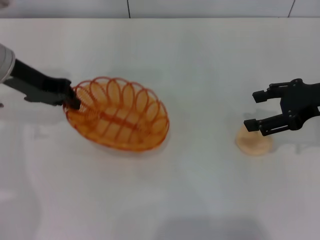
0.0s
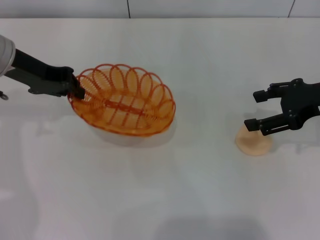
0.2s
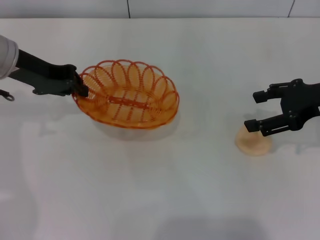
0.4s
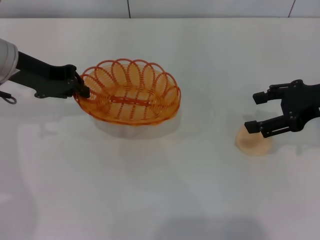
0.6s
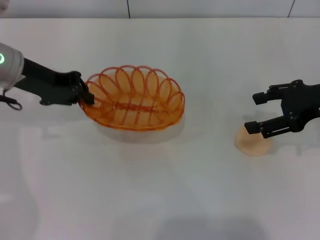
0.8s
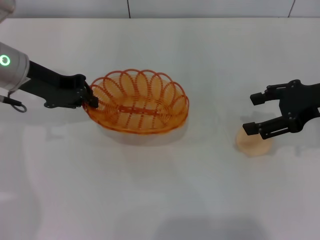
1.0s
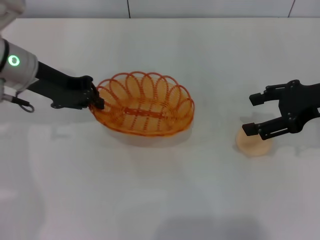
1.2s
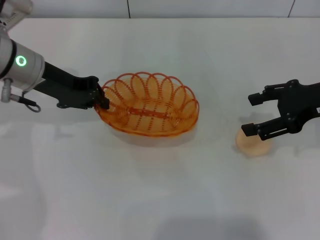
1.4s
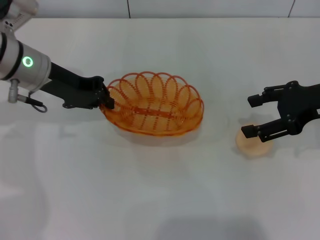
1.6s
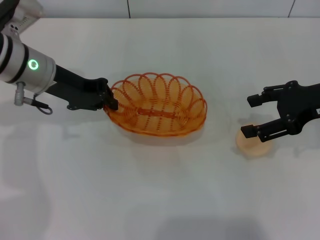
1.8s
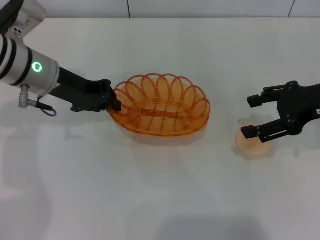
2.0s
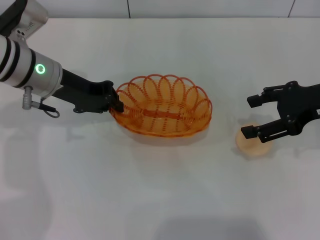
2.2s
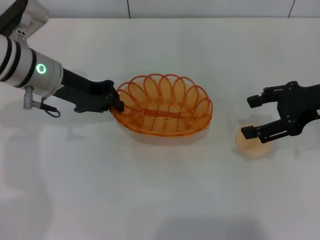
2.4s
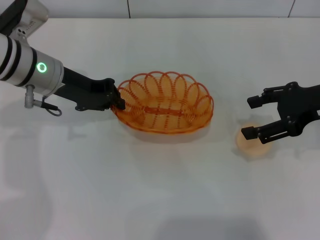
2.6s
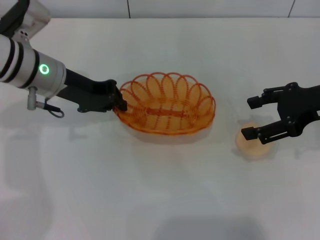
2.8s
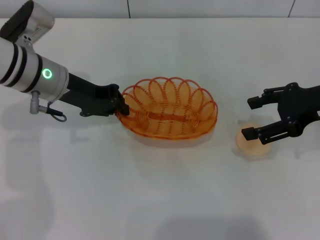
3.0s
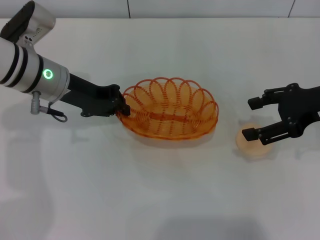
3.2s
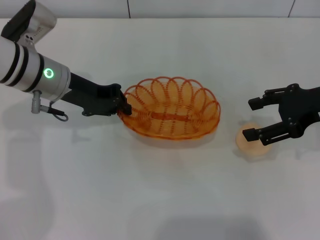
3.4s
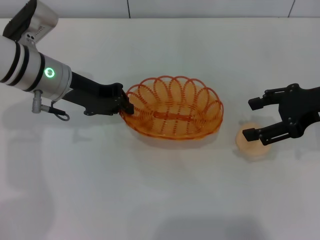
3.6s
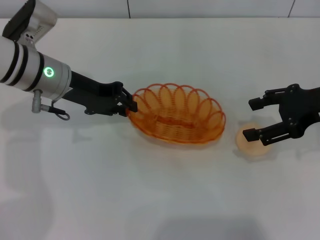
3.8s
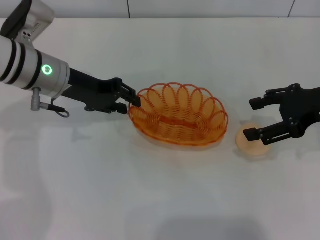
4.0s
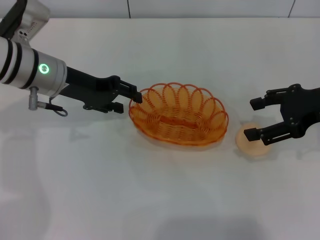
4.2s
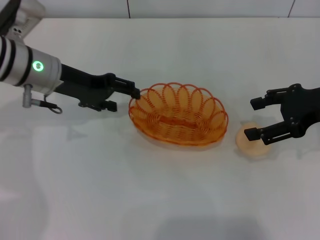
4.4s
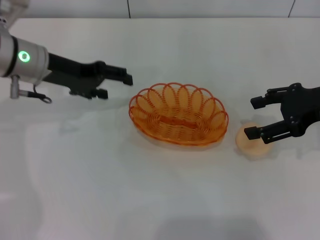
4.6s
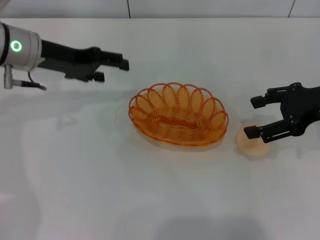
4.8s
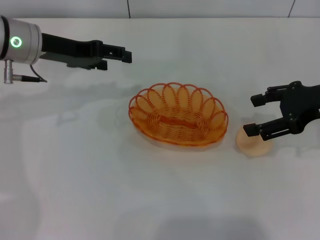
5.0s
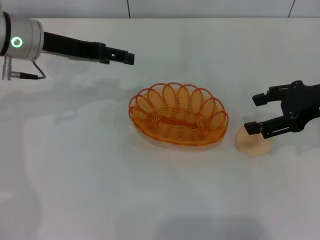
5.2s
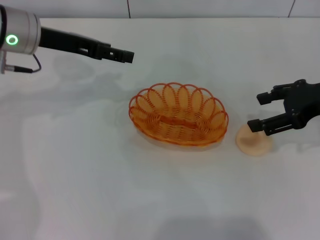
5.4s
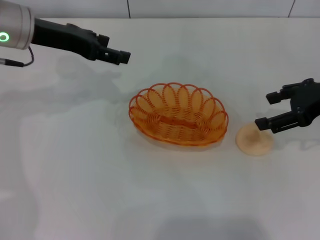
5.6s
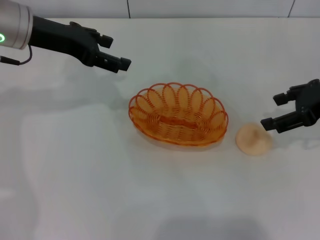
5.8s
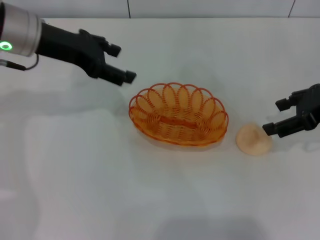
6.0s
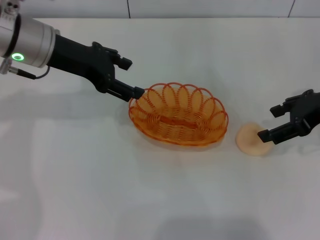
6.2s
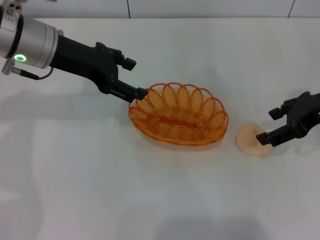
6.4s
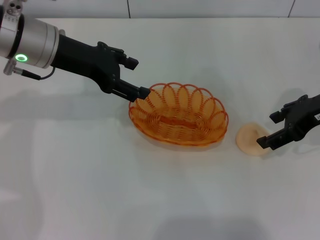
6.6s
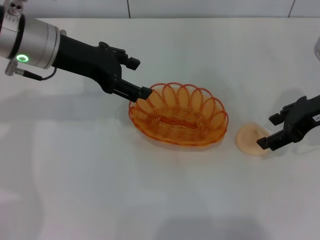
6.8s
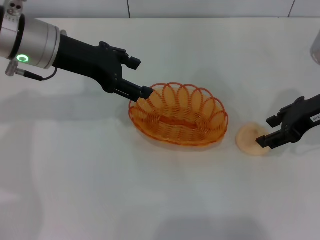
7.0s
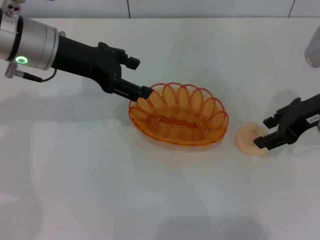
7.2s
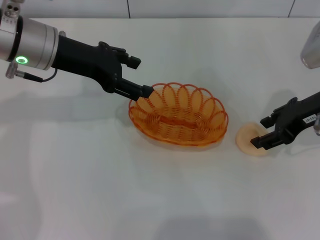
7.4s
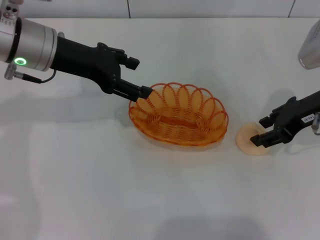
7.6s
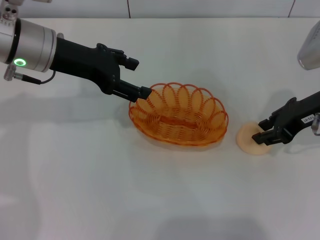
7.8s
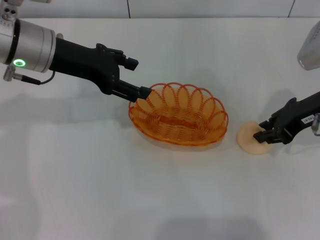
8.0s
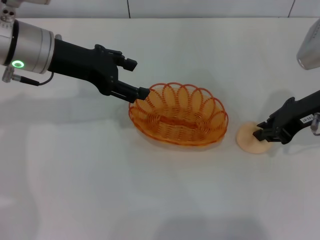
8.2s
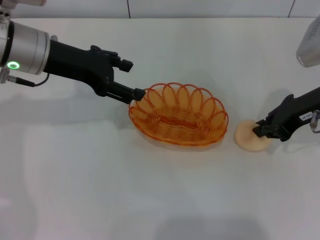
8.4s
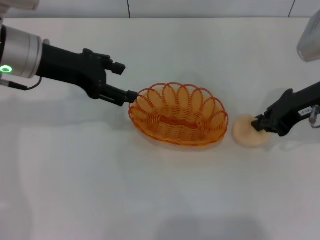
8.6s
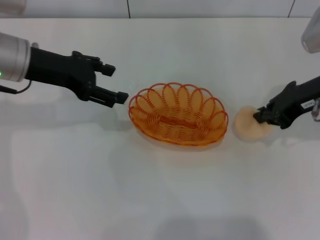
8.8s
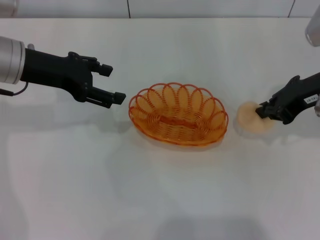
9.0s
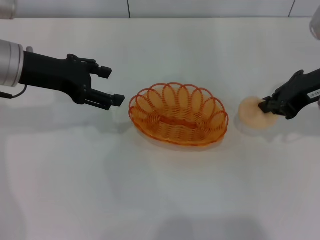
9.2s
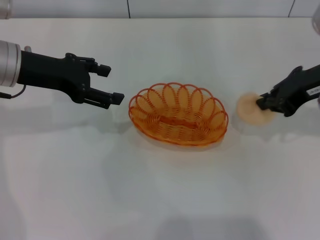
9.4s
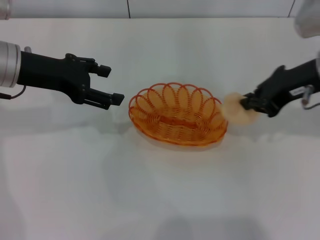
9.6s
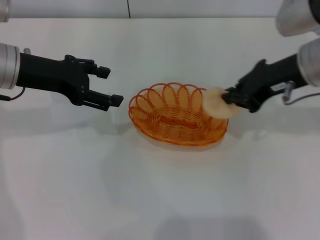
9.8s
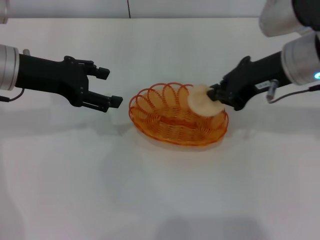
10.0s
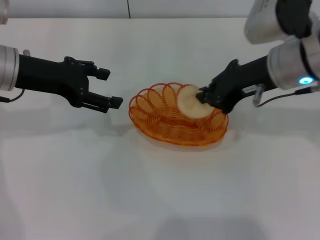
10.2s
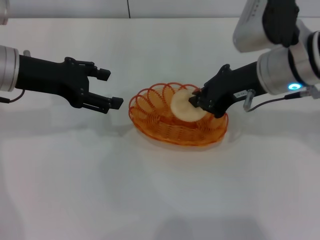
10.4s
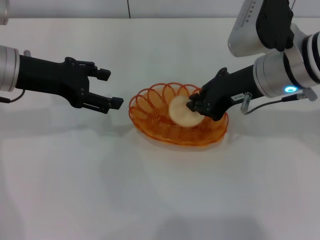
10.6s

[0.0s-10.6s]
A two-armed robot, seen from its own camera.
Step, 0.8s to 4.8s: Place the basket in the center of view with the left gripper.
Step, 5.0s to 8.8s: Pick up the egg yolk pastry with the right gripper.
0.0s to 1.6s: There are only small adjustments of the grippers.
1.6s to 3.0s: The grippers stay close to where they were, moving slightly.
3.0s to 4.6s: The left gripper opens its fingers.
6.0s to 7.6s: The right gripper closes its fingers.
7.6s to 9.0s: The right gripper closes.
9.0s to 10.6s: The right gripper moves to the left, about 10 cm.

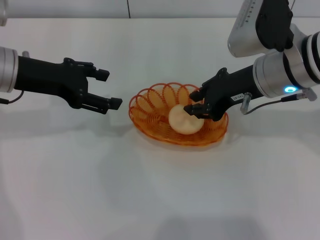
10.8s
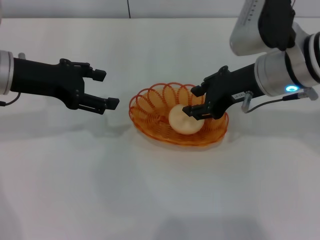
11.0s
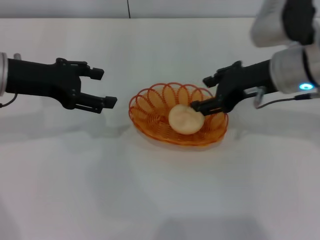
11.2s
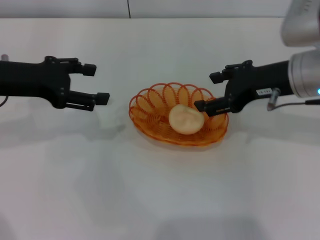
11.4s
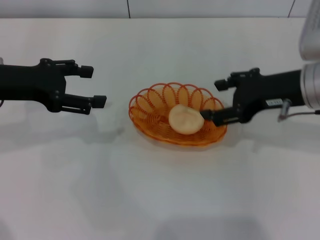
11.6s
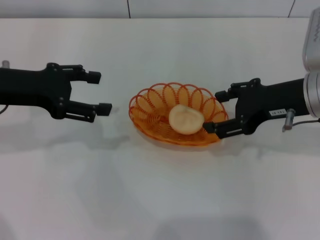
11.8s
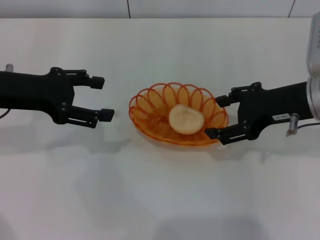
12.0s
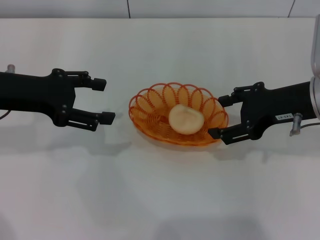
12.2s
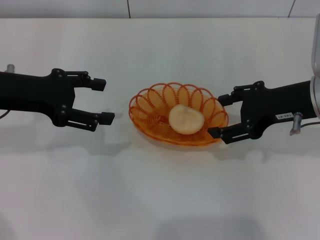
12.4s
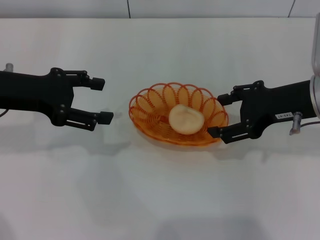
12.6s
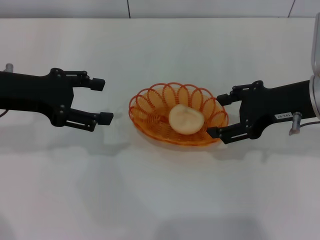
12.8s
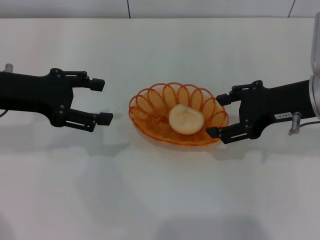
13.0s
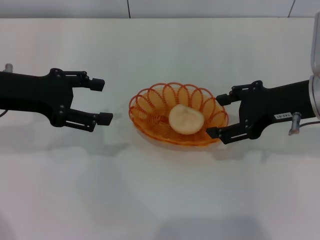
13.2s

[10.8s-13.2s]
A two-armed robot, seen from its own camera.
10.8s to 12.0s: The right gripper goes approximately 5 cm to the right, and opens up.
12.0s to 13.2s: The two grippers keep their place.

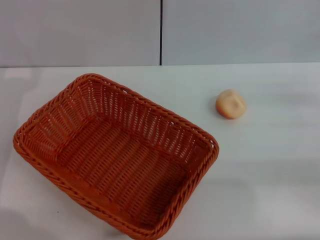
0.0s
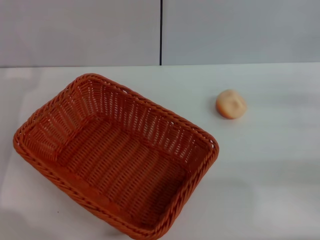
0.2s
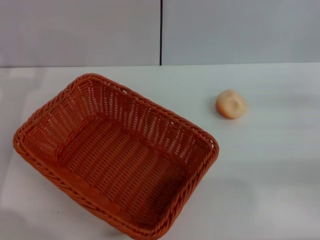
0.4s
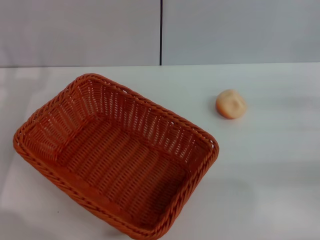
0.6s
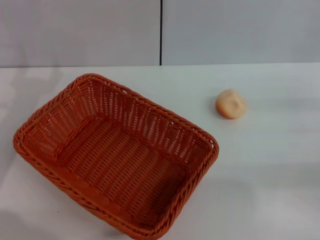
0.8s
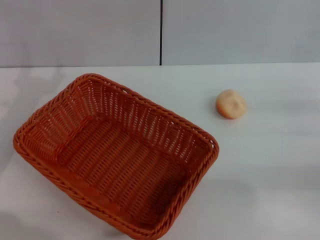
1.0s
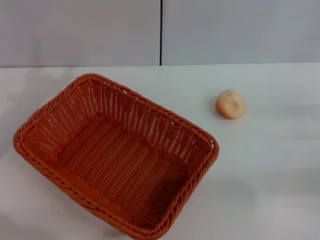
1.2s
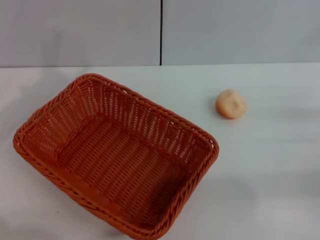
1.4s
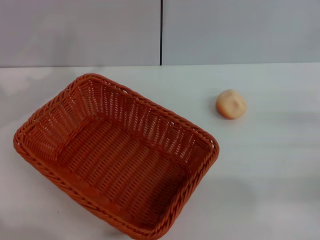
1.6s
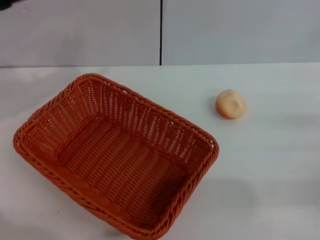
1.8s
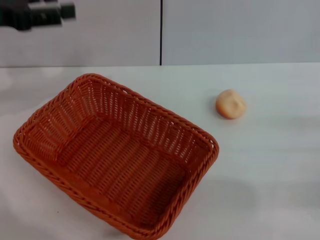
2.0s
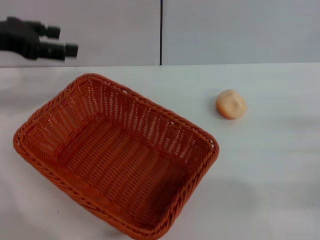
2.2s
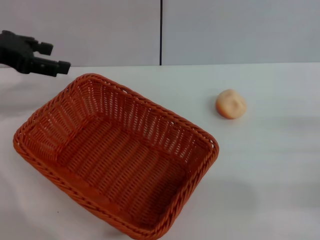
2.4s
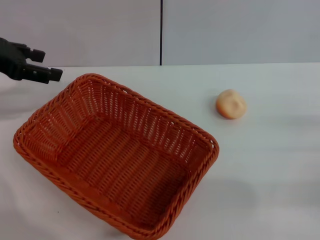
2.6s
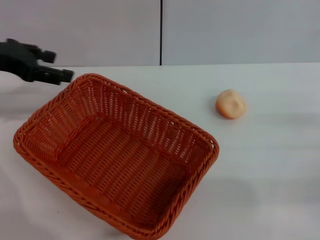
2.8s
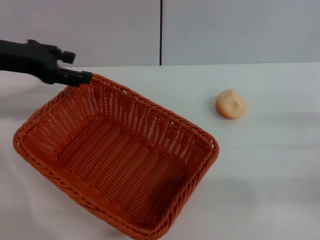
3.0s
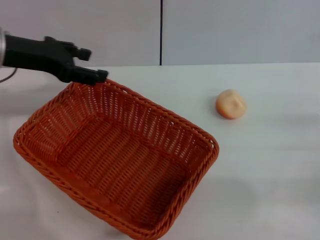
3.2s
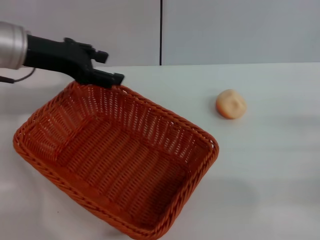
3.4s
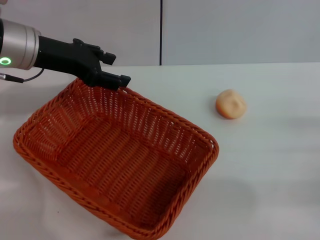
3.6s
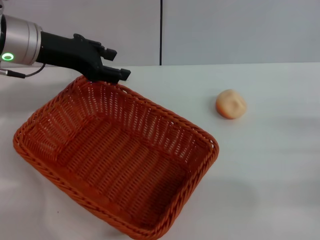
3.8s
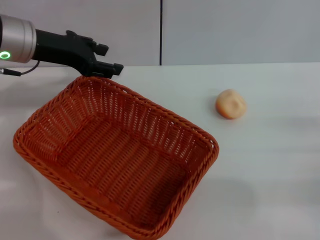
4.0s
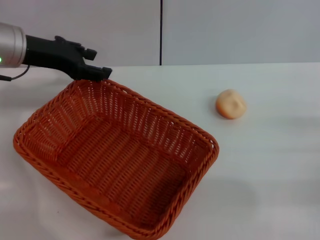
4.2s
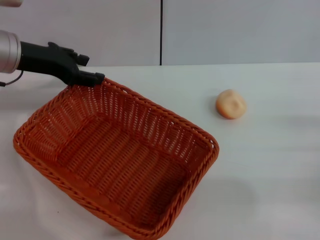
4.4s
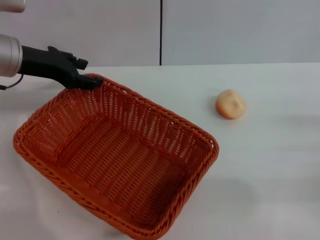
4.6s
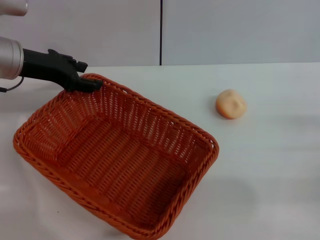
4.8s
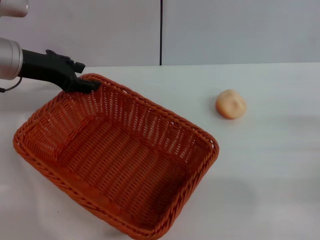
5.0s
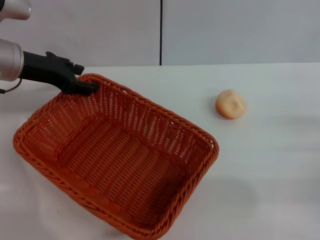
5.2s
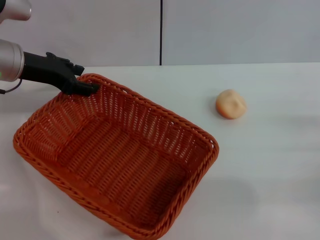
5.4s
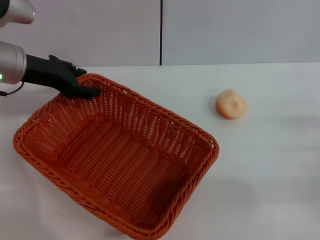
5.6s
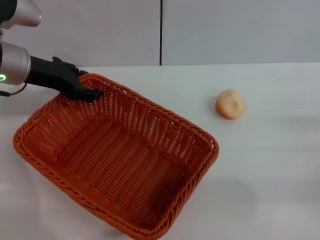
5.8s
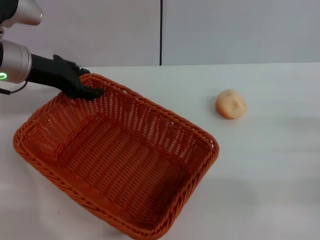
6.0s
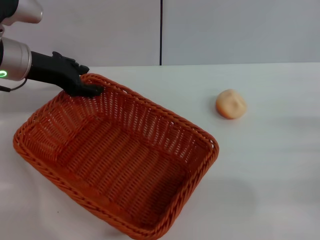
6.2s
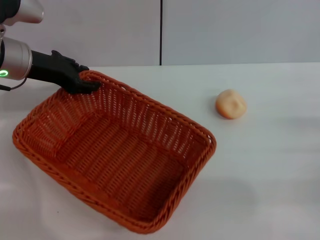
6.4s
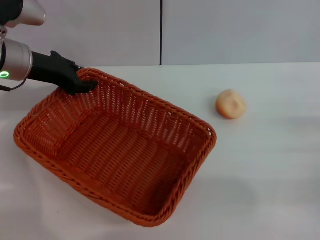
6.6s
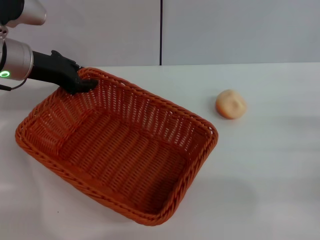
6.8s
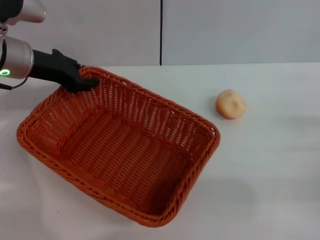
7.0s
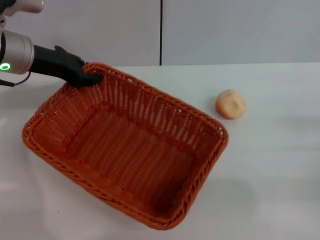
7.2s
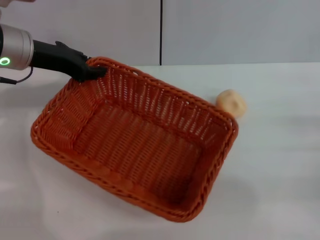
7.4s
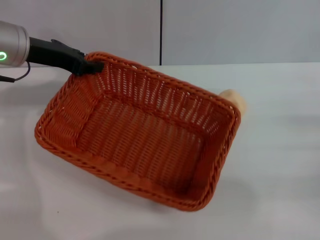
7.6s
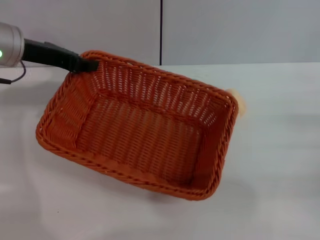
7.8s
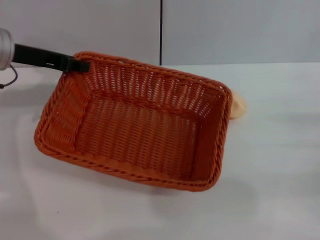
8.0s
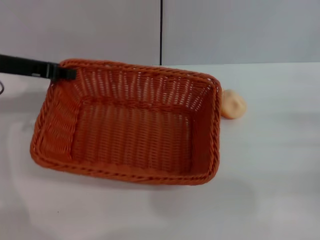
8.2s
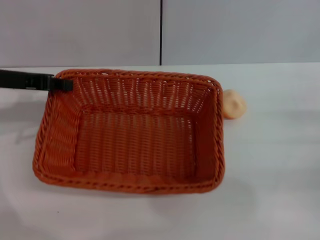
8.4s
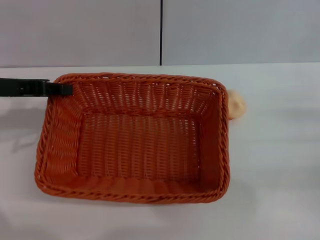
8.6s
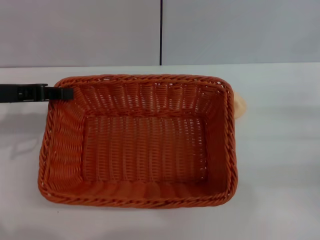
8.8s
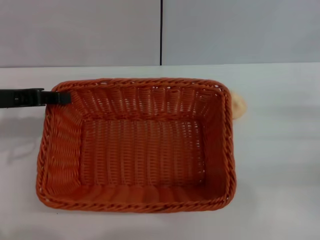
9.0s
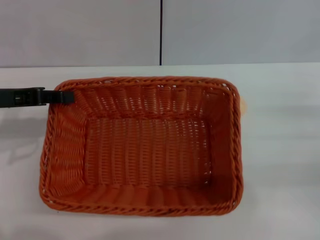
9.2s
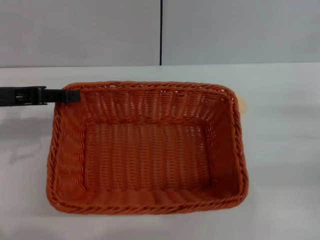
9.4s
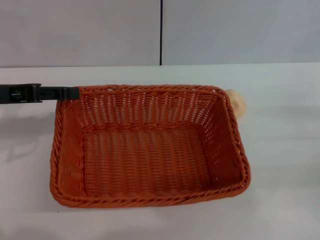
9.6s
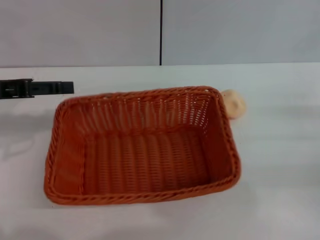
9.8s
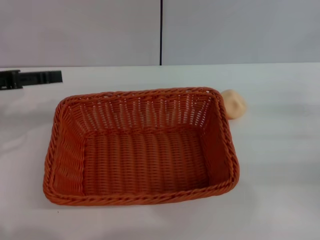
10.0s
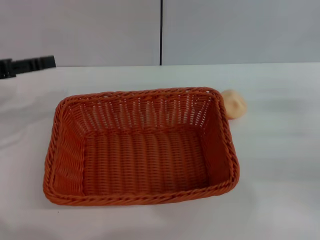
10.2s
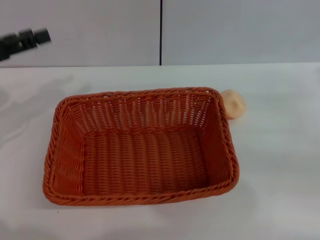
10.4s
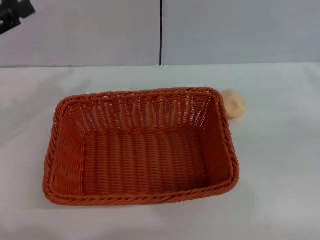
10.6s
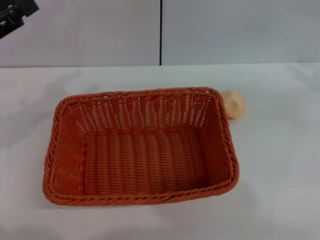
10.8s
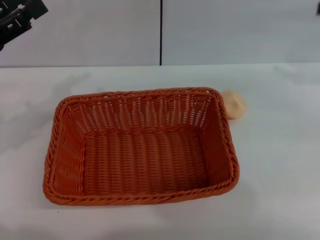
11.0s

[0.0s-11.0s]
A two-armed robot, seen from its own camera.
Step, 0.0s to 9.6s: Move the basket to the center of view with the left gripper.
1.6s to 3.2s: The left gripper is displaced to the right by about 5 cm.
3.2s to 6.2s: There are only small adjustments of the grippers.
6.2s to 7.8s: The left gripper closes its fingers.
7.8s to 9.4s: The left gripper shifts approximately 10 cm backward.
9.4s to 11.0s: The right gripper moves upward and forward, roughly 20 cm. The left gripper opens up.
